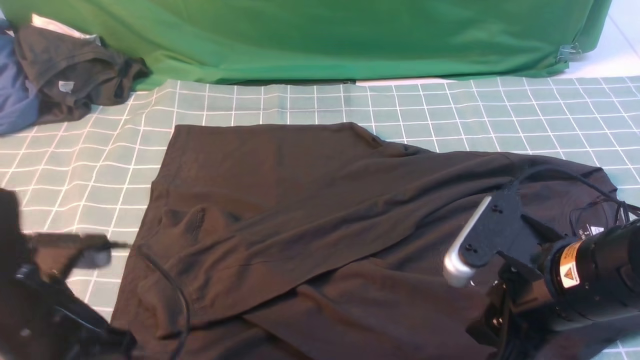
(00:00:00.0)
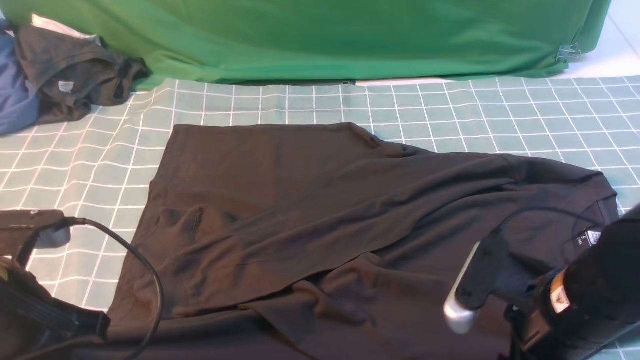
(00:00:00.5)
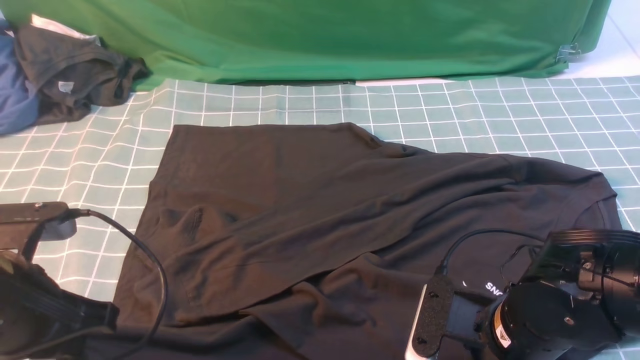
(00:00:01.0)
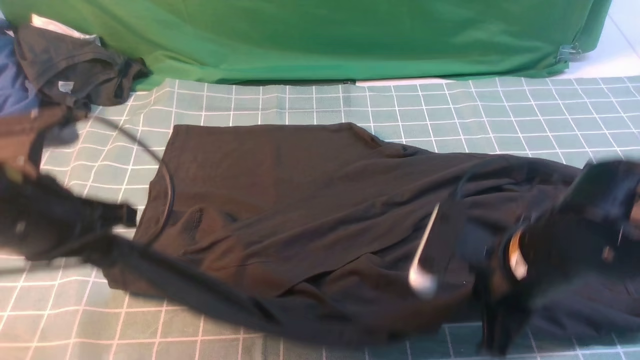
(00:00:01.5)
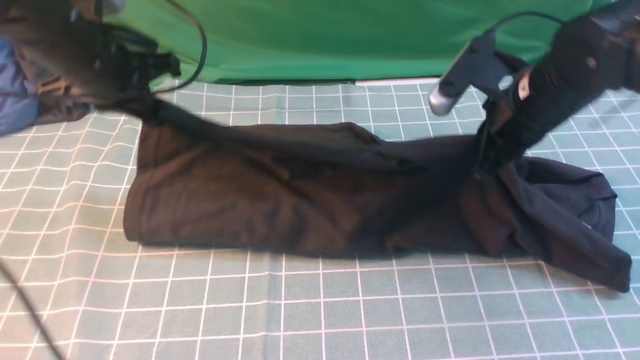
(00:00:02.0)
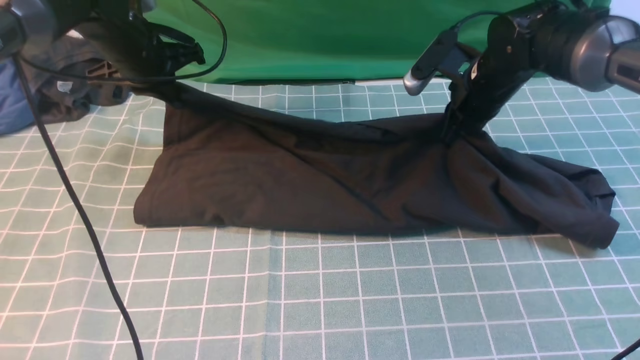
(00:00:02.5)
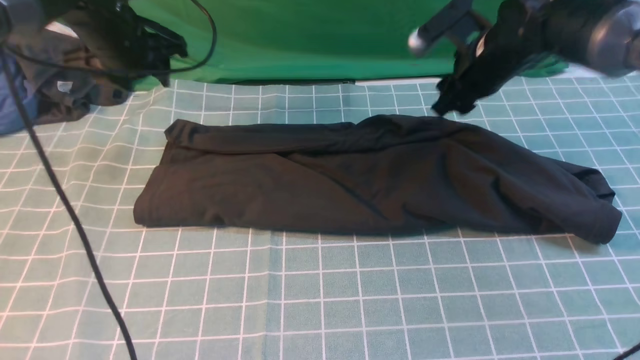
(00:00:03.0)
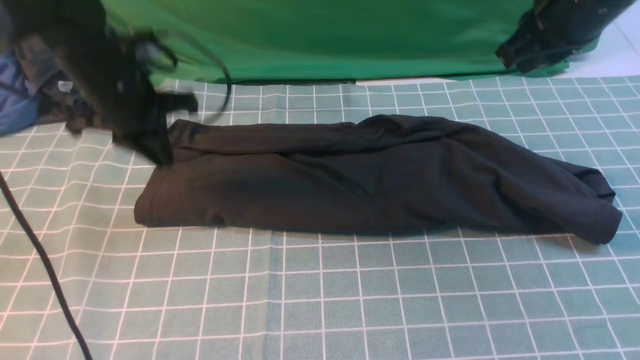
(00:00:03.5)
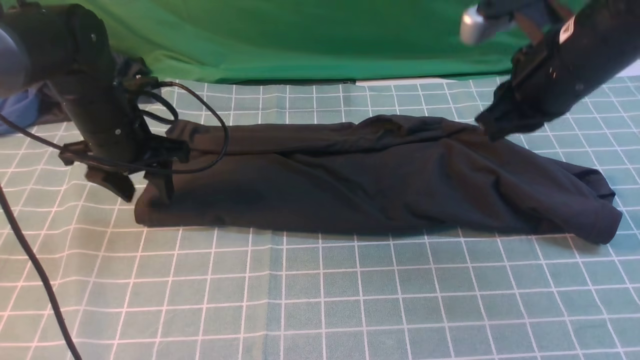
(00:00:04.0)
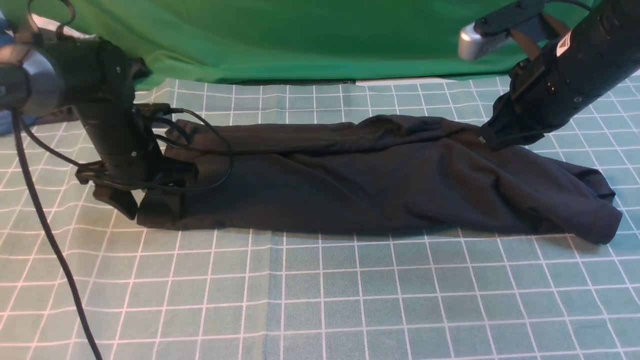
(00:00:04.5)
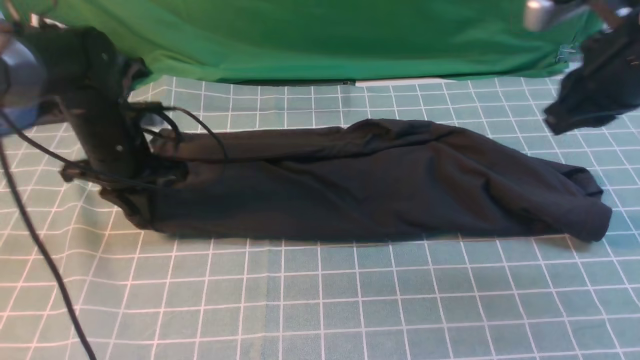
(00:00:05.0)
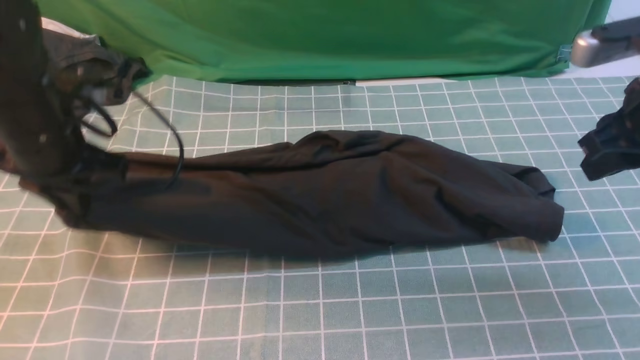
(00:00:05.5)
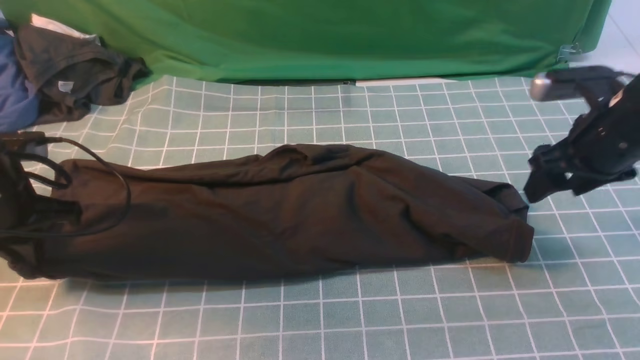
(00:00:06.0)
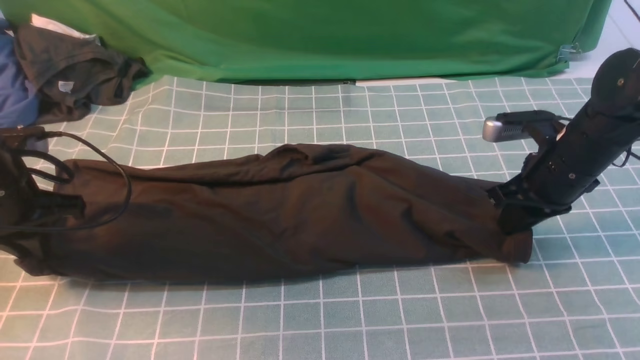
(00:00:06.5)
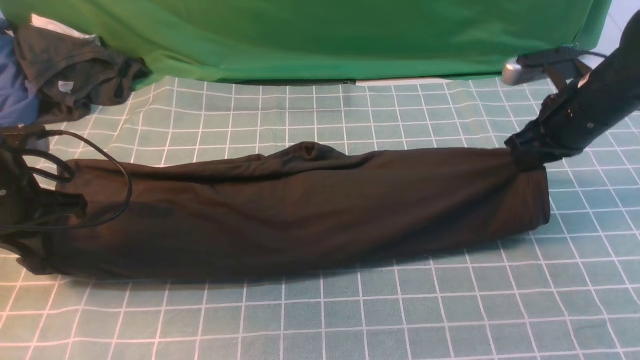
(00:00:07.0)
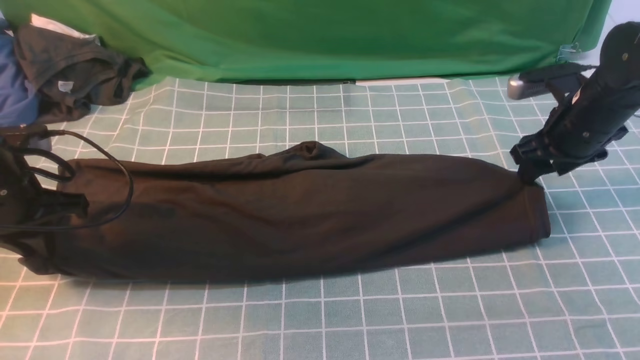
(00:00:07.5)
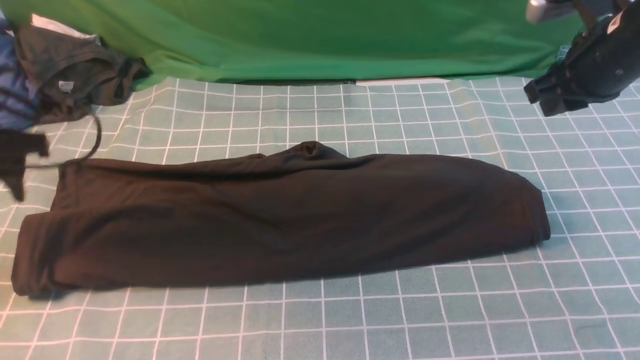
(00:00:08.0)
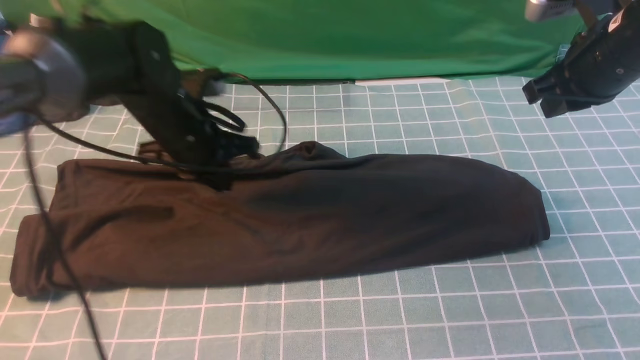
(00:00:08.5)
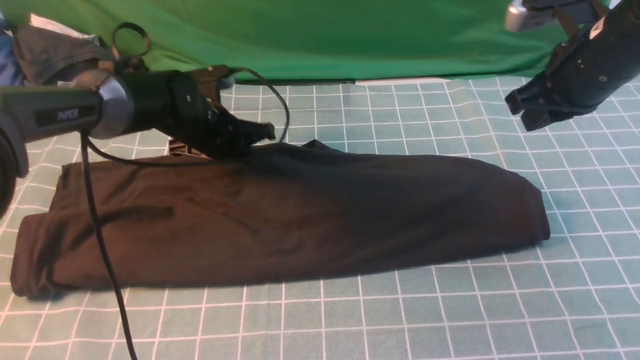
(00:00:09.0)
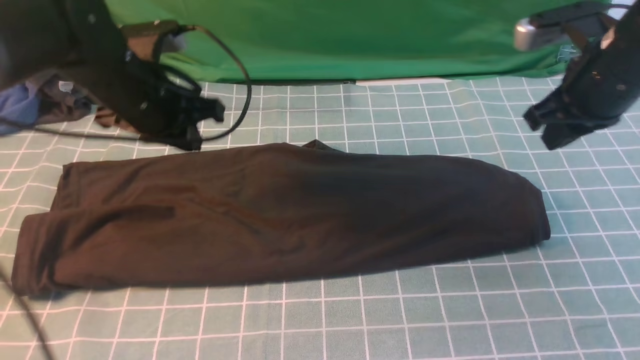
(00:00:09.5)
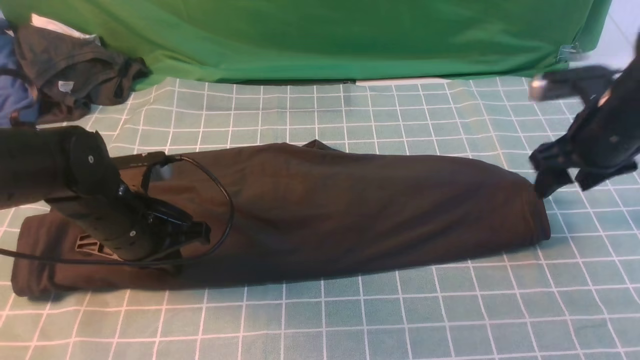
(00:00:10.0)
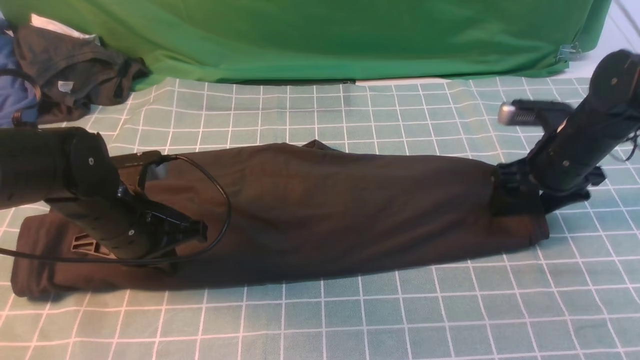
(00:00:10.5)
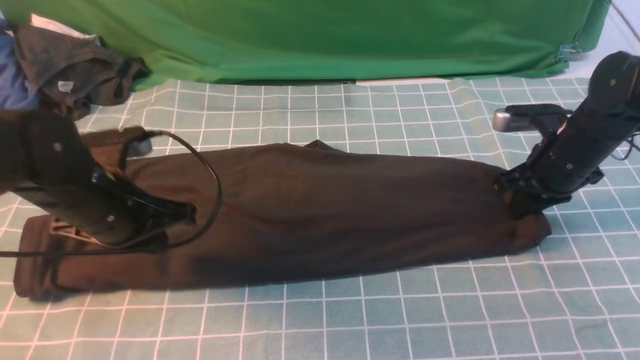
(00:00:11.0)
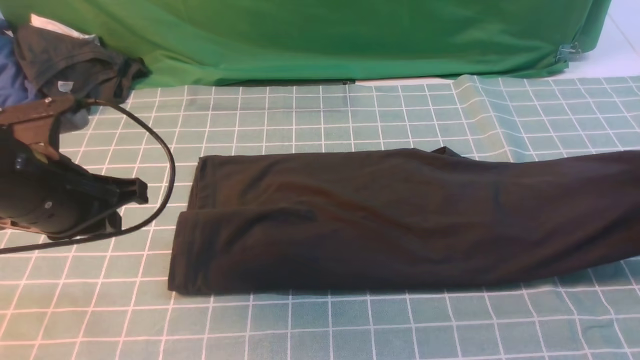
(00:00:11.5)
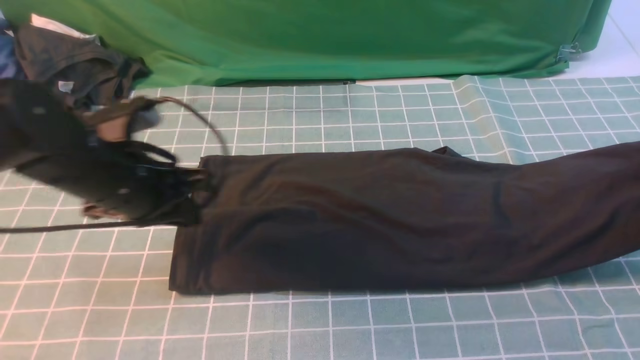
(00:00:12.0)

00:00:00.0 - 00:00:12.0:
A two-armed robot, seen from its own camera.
Step, 00:00:01.5 - 00:00:03.0: use both arms to drag the lower edge of the fabric forward and fold it over the upper edge.
Step, 00:00:03.5 - 00:00:11.0: use the right arm to clamp the right edge of the fabric.
00:00:00.0 - 00:00:02.0: The two grippers go some 20 cm forward. The right gripper closes.
00:00:02.0 - 00:00:04.0: The left gripper goes about 10 cm downward, moves roughly 10 cm forward and comes back, and opens up; the right gripper goes up and down, about 15 cm each way, reversing 2 times, and opens and closes again.
00:00:04.0 - 00:00:06.0: The left gripper travels backward and to the left by roughly 10 cm, and closes up, while the right gripper is displaced downward and to the right by roughly 10 cm, and opens.
00:00:06.0 - 00:00:08.0: The two grippers go roughly 5 cm upward. The right gripper closes. The left gripper opens its fingers.
00:00:08.0 - 00:00:10.0: The left gripper heads to the right and downward, covering about 15 cm, and closes, while the right gripper moves downward, approximately 5 cm, and opens its fingers.
00:00:10.0 - 00:00:12.0: The left gripper is displaced upward by some 5 cm, while the right gripper heads to the right, covering some 10 cm, and closes its fingers.

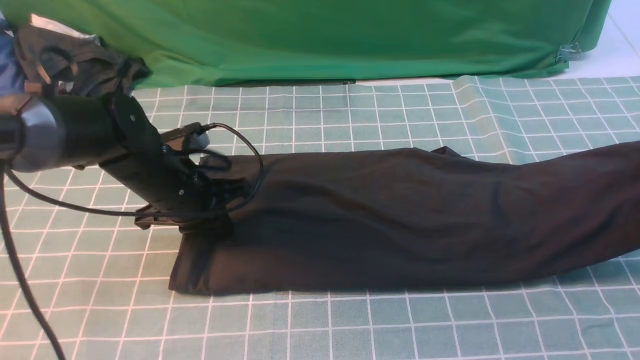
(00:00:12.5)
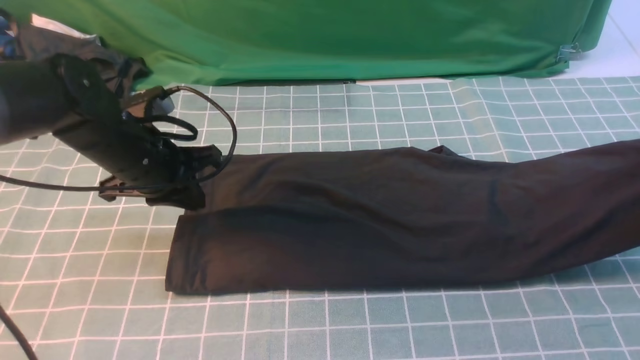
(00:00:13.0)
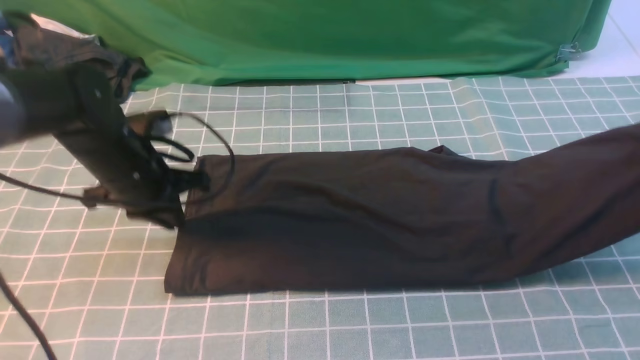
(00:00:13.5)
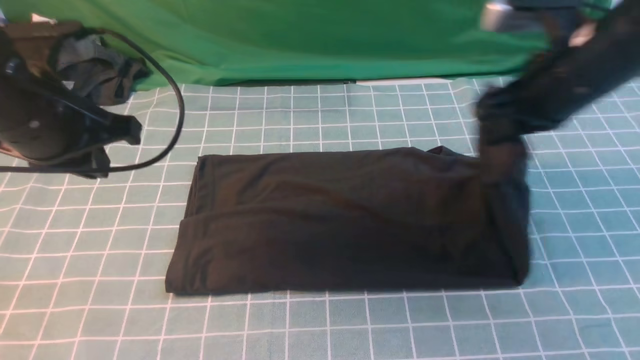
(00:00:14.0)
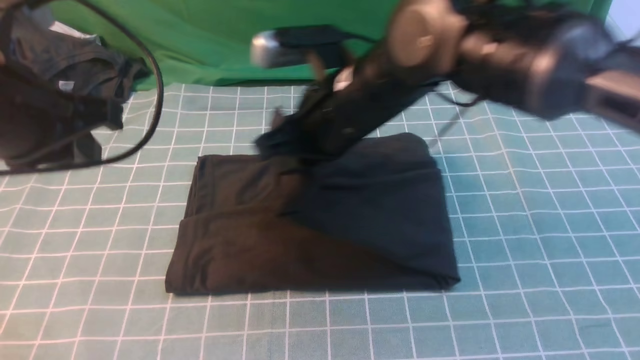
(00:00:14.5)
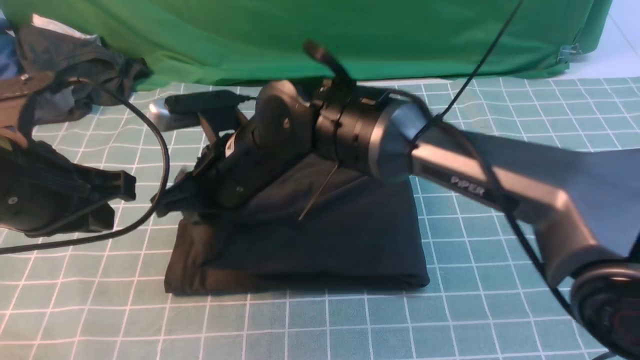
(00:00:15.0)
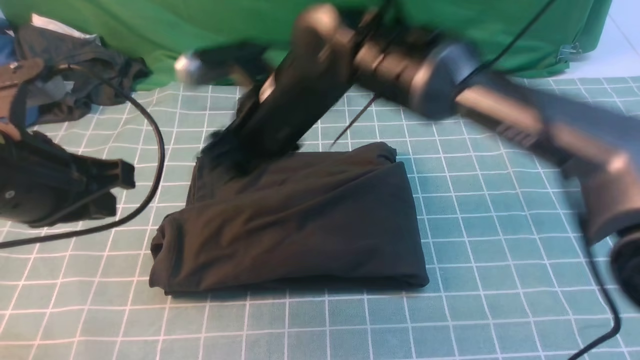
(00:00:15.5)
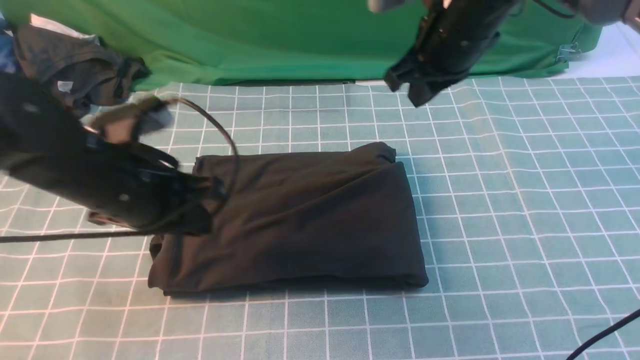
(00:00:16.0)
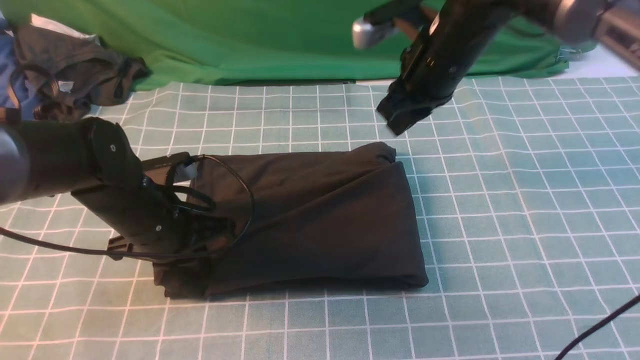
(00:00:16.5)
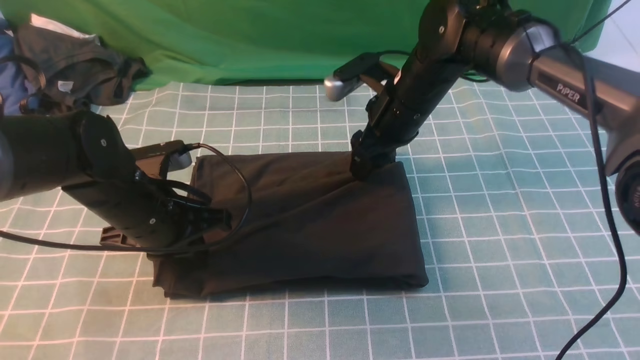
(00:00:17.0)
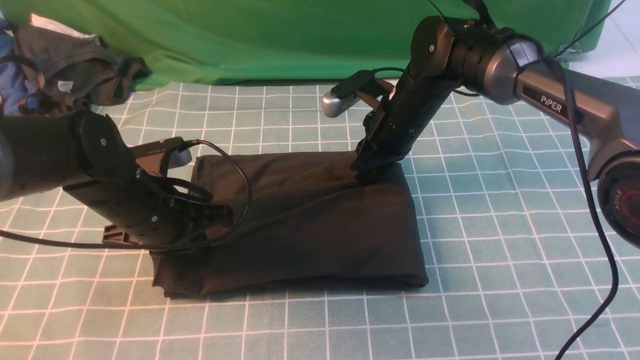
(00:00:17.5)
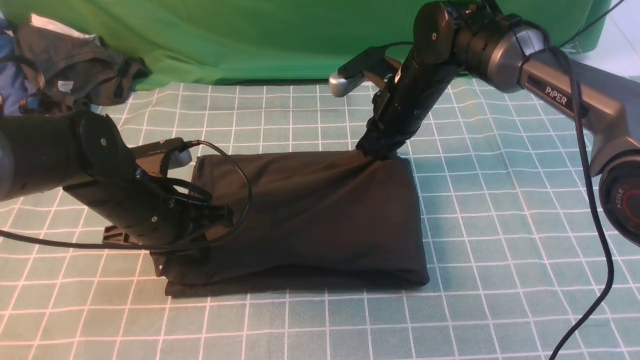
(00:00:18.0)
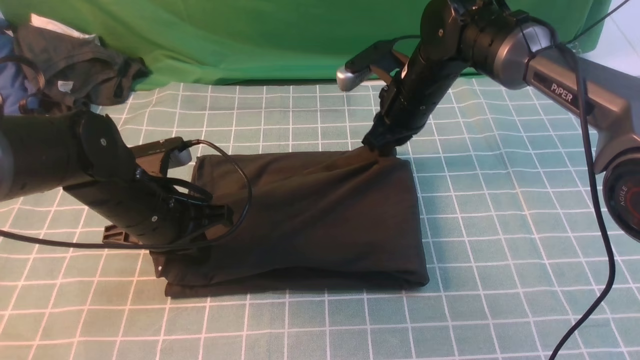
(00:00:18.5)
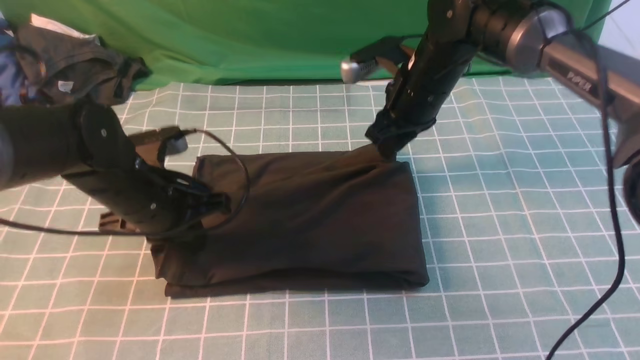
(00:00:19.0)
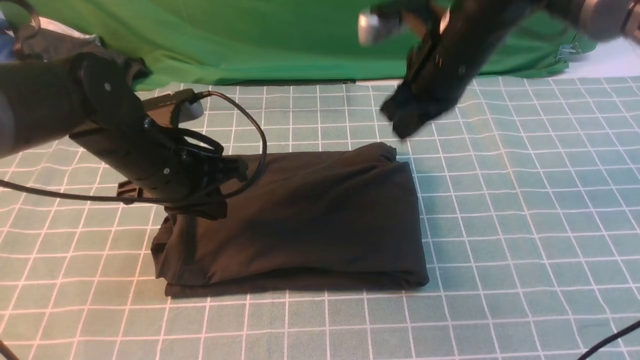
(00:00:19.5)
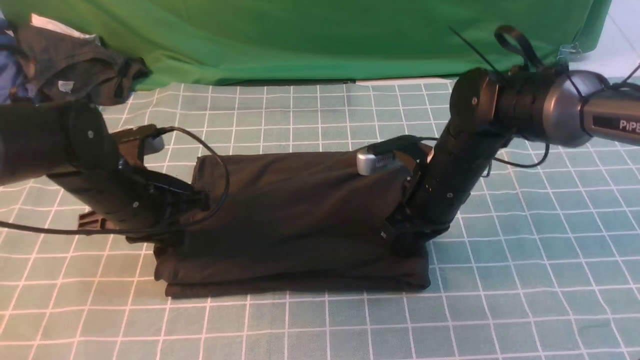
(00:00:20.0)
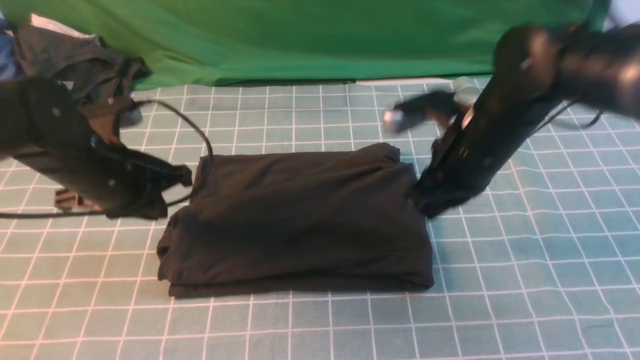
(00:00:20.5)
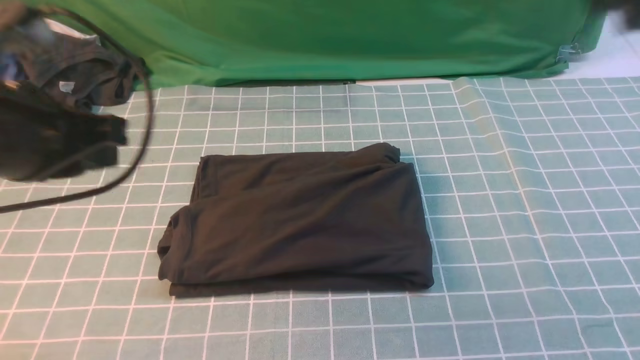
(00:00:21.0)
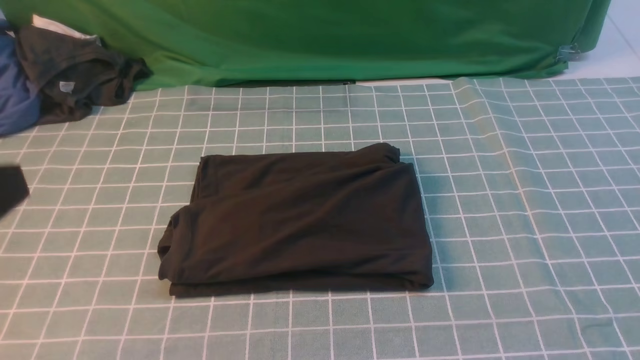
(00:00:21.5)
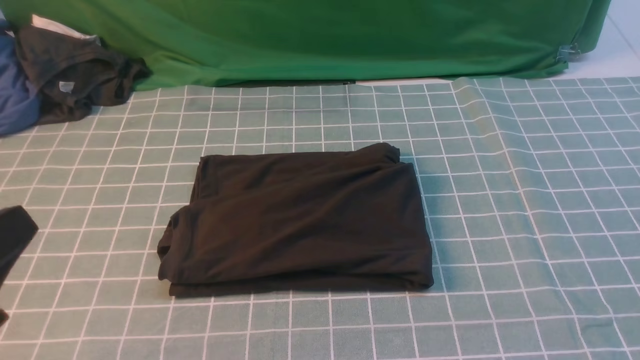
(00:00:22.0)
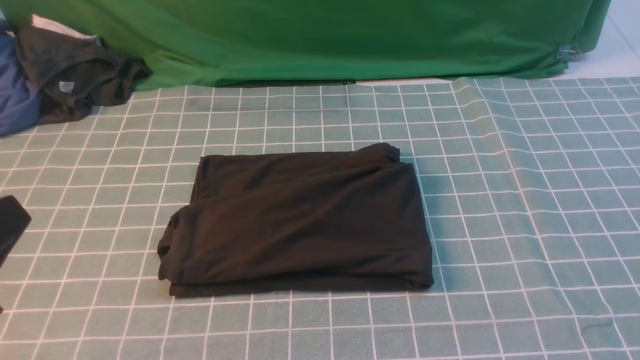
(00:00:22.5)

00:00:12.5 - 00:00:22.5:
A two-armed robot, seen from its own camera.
Step, 00:00:12.5 - 00:00:15.0: use the right arm to drag the right edge of the fabric to the left and folds it over the left edge.
00:00:12.5 - 00:00:14.5: The left gripper shifts some 20 cm upward and backward. The right gripper travels to the left by some 40 cm.
00:00:14.5 - 00:00:16.5: The left gripper is displaced downward by roughly 15 cm; the right gripper is displaced to the right and forward by roughly 15 cm.
00:00:16.5 - 00:00:18.5: The right gripper goes some 5 cm downward, and opens and closes again.
00:00:18.5 - 00:00:20.5: The left gripper changes place by about 5 cm. Meanwhile the right gripper moves backward and upward, about 15 cm.
00:00:20.5 - 00:00:22.5: The left gripper travels backward by roughly 25 cm. The right gripper goes approximately 35 cm backward, to the right and upward.
